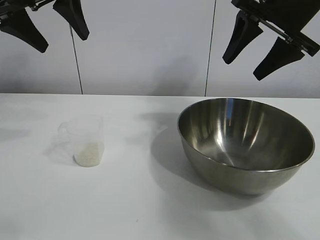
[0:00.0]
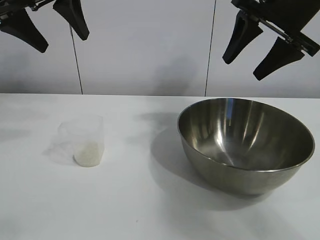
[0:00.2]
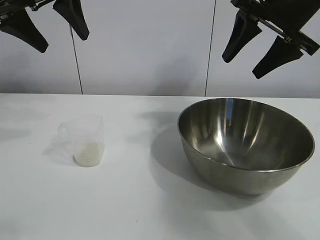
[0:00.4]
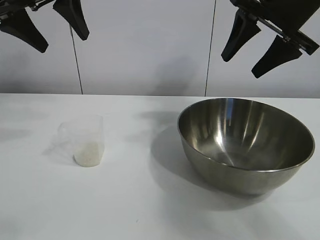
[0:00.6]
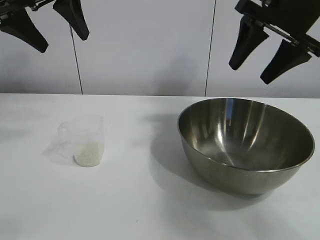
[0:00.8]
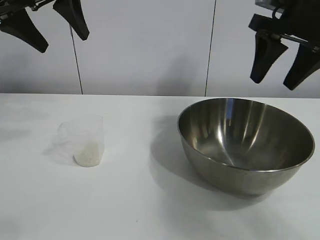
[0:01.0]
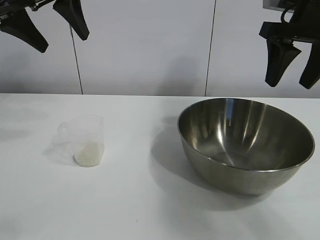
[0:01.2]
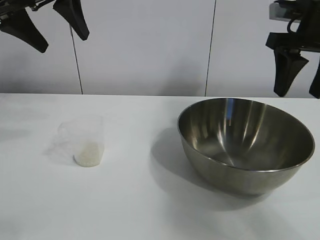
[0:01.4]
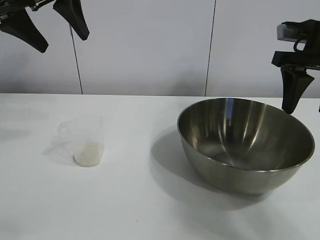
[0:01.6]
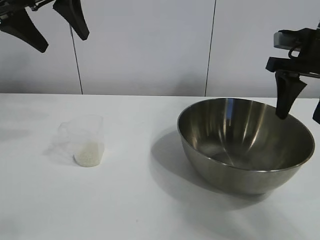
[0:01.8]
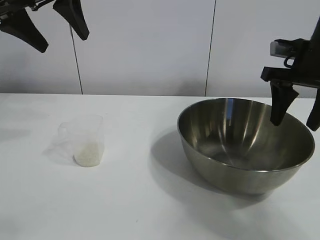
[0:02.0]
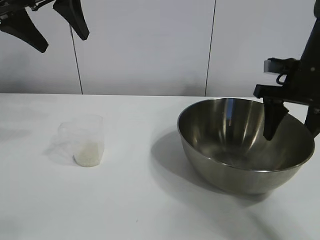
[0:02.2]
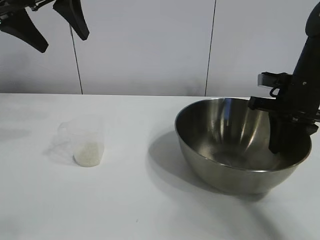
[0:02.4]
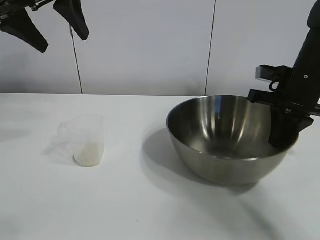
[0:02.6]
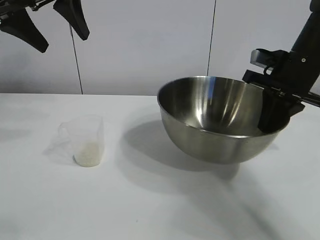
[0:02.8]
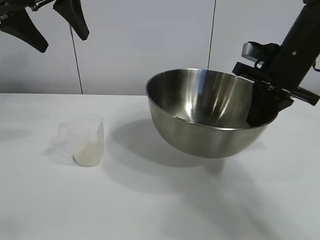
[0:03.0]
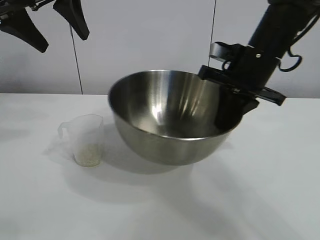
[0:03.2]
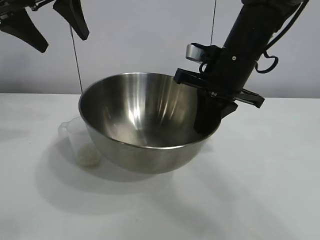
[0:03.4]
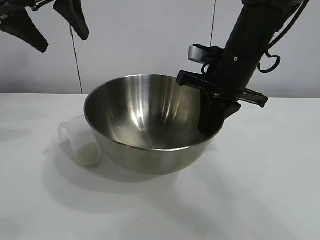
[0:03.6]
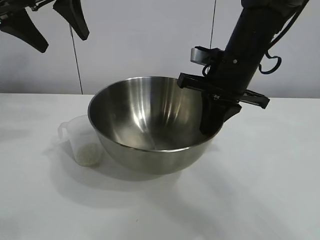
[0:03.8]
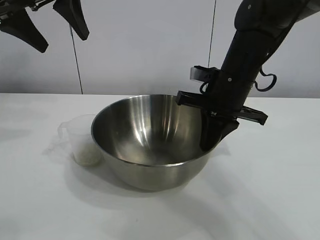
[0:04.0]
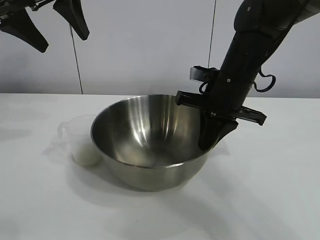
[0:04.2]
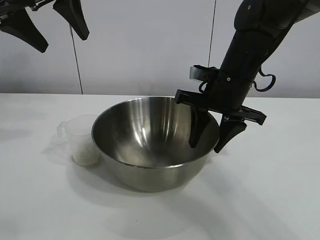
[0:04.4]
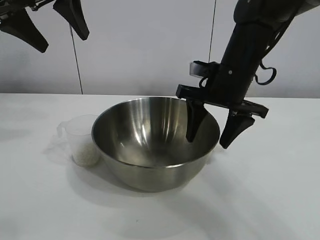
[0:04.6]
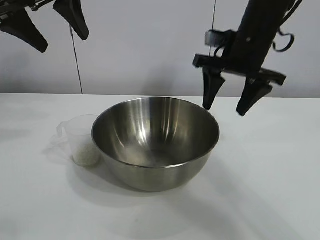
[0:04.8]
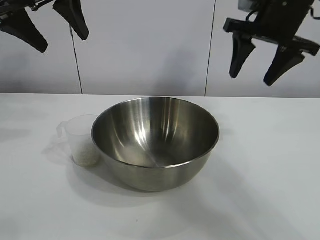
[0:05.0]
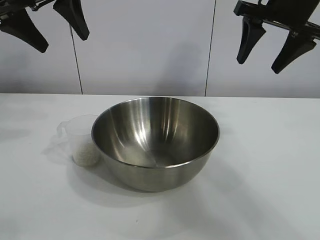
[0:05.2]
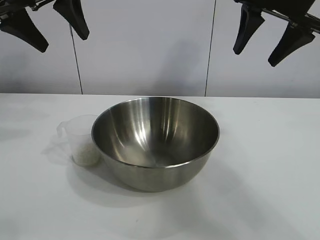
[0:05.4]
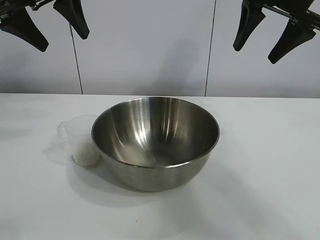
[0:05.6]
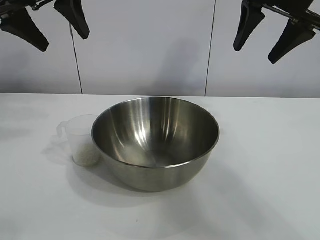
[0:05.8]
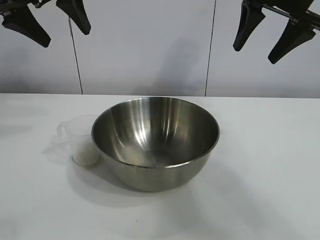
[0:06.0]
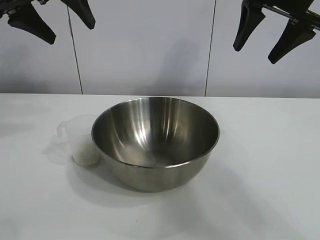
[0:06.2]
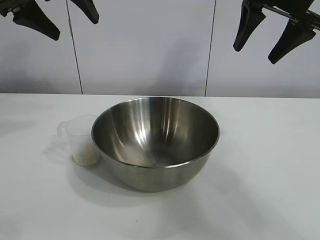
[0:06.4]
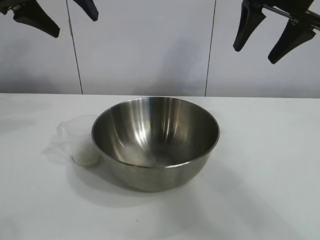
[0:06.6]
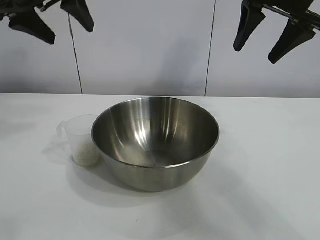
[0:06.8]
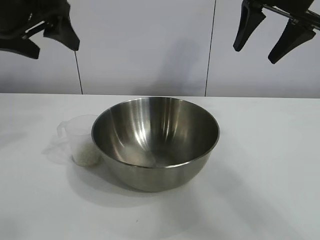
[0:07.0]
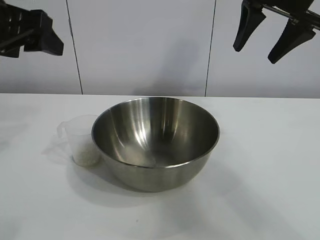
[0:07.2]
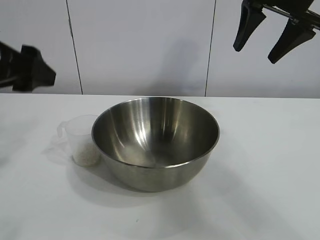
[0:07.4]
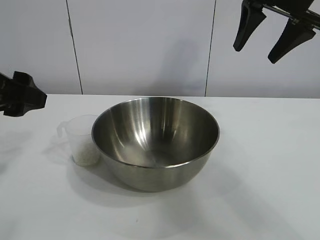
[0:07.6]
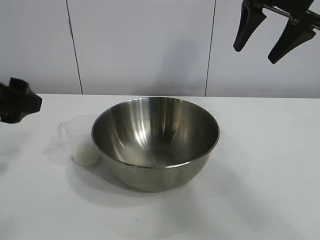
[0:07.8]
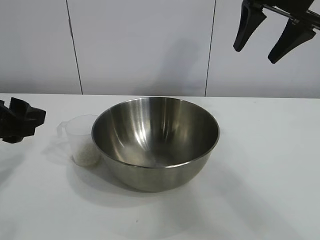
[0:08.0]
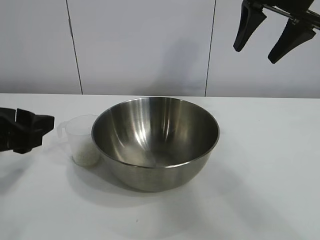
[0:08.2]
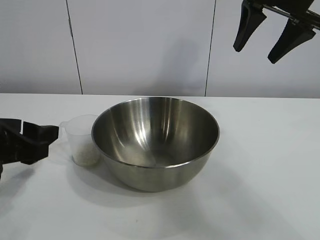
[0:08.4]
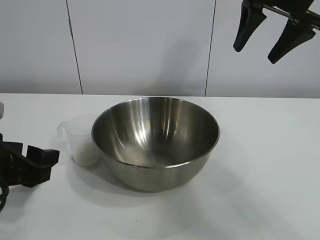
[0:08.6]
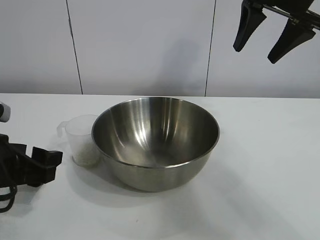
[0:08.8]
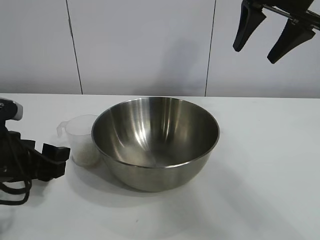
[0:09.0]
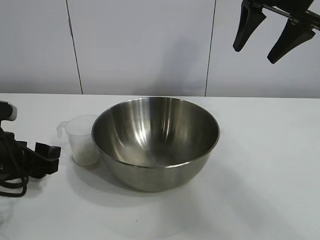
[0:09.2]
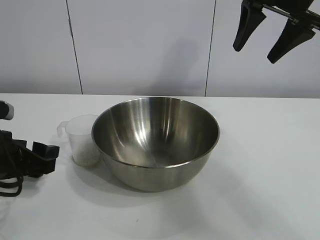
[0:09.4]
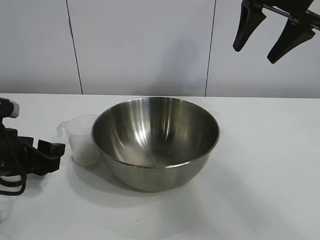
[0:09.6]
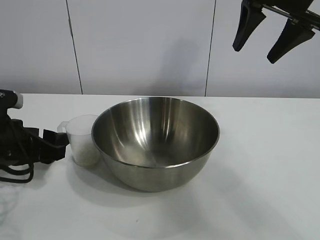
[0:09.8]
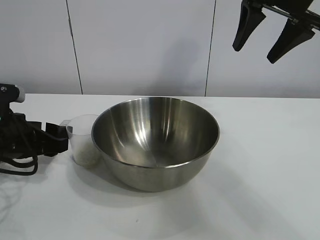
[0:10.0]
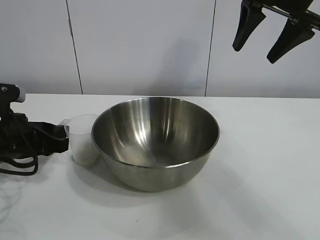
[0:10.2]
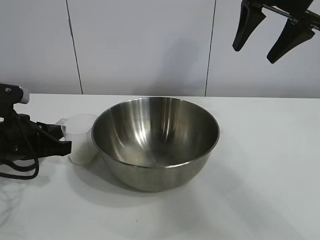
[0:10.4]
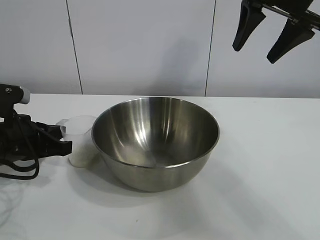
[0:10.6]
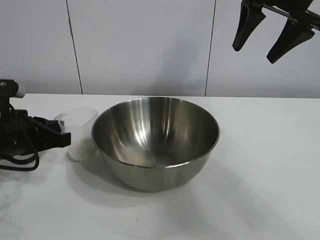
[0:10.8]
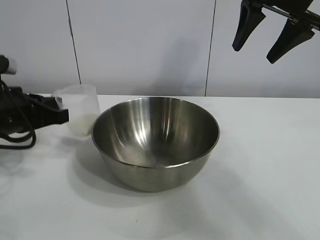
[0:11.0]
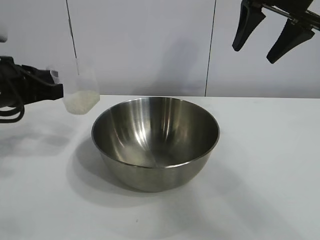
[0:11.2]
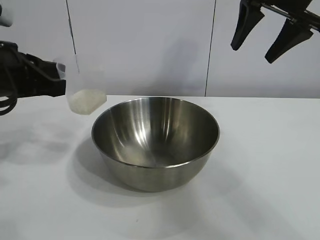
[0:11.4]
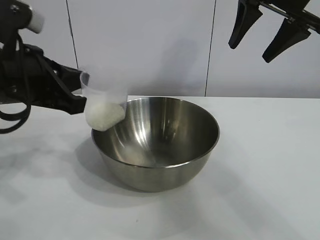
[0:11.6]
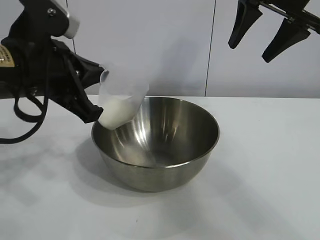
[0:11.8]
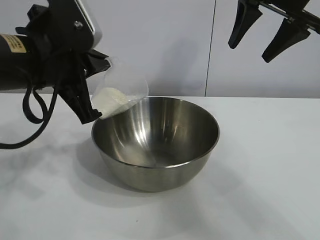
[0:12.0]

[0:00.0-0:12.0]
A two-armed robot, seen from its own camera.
Task of the whole recording: the right gripper grasp the rice container and place it in the center of the table, the left gripper grasp the rice scoop and pour the rice into the rice container.
Step, 0:00.8 to 0:04.4: Move the bowl in the center of view with right gripper.
Step, 0:04.6 to 0:10.6: Grasp the cup with rice in it with left gripper.

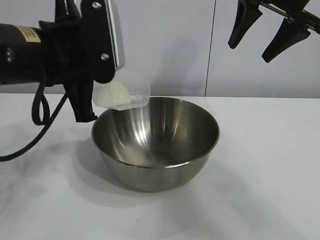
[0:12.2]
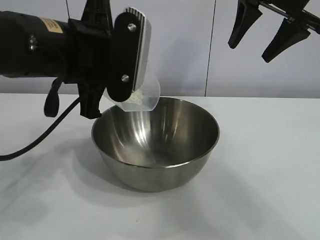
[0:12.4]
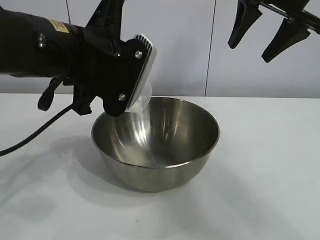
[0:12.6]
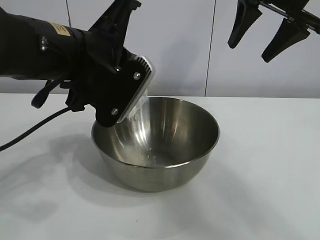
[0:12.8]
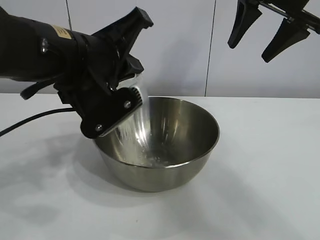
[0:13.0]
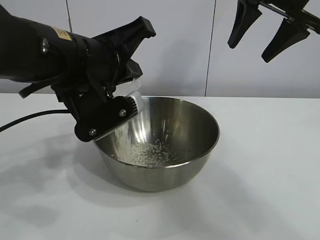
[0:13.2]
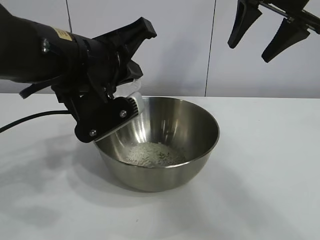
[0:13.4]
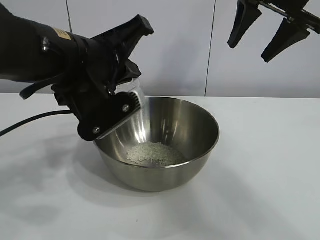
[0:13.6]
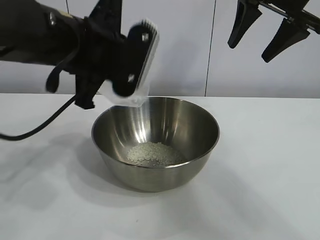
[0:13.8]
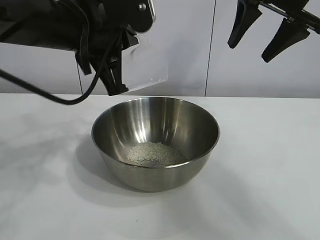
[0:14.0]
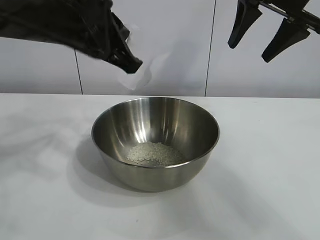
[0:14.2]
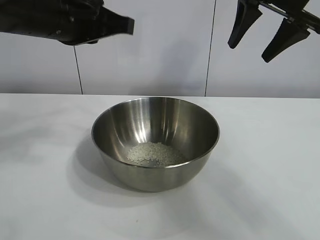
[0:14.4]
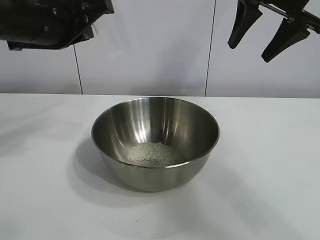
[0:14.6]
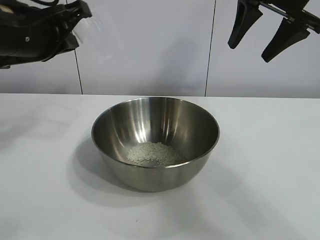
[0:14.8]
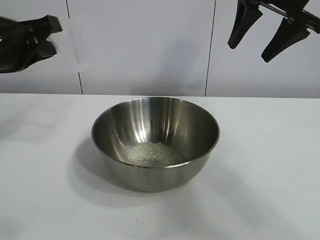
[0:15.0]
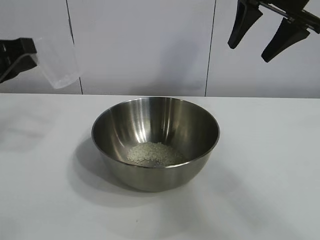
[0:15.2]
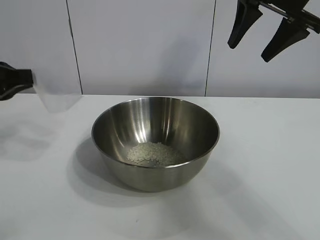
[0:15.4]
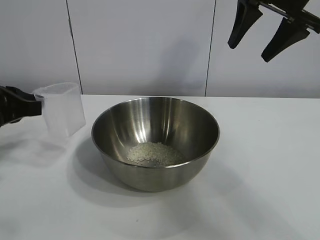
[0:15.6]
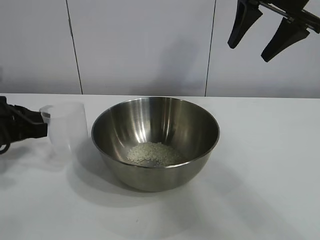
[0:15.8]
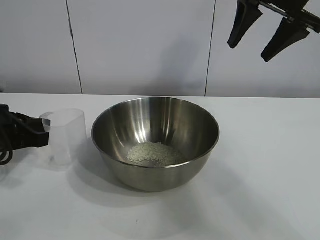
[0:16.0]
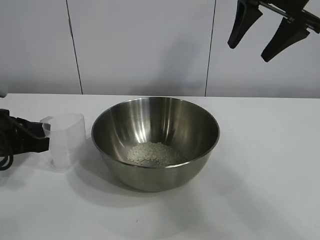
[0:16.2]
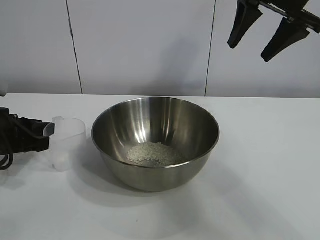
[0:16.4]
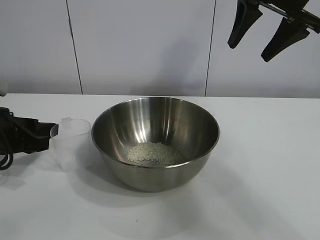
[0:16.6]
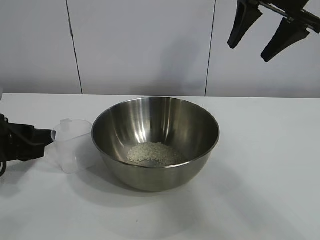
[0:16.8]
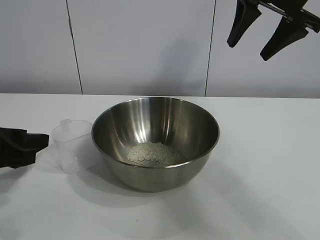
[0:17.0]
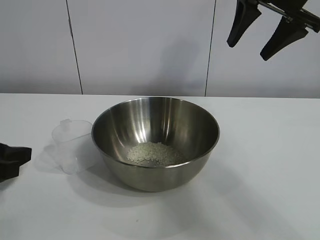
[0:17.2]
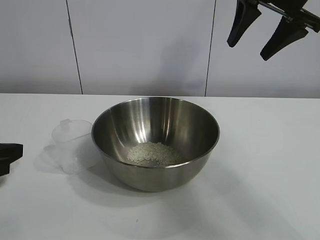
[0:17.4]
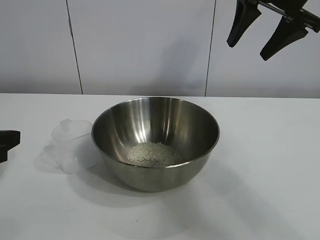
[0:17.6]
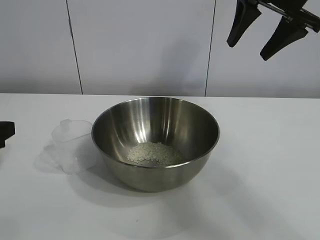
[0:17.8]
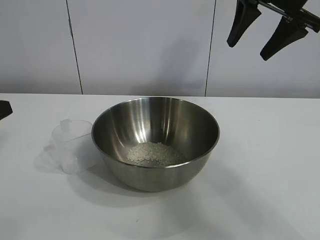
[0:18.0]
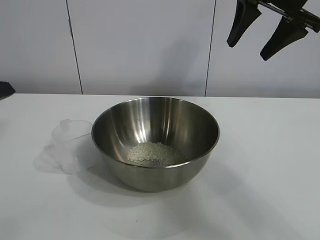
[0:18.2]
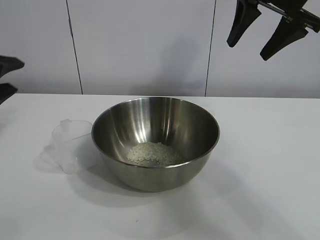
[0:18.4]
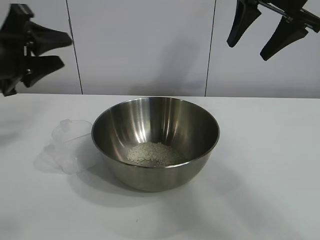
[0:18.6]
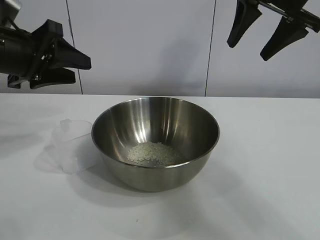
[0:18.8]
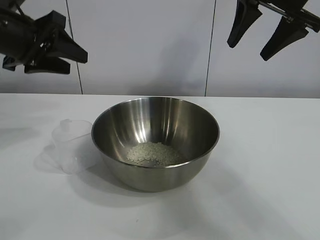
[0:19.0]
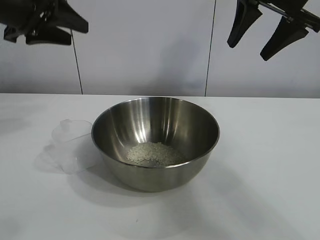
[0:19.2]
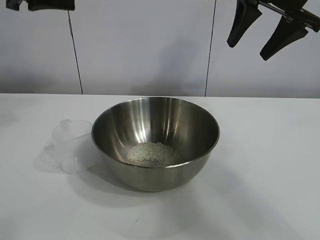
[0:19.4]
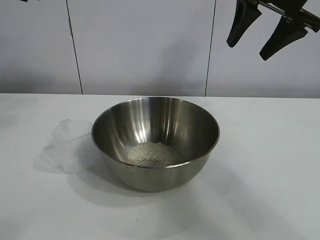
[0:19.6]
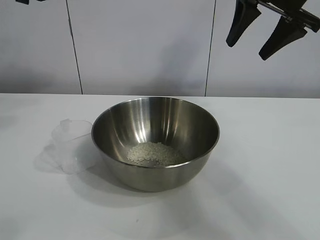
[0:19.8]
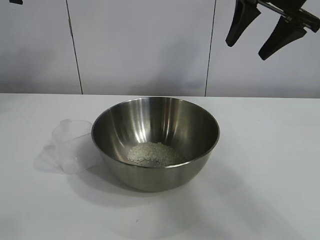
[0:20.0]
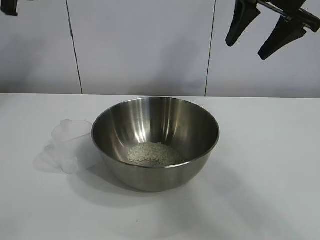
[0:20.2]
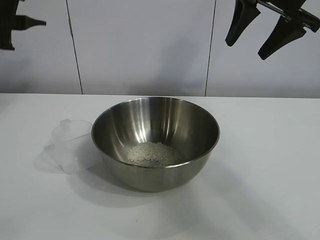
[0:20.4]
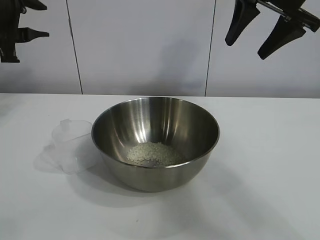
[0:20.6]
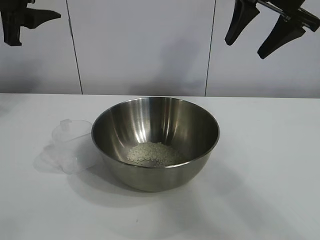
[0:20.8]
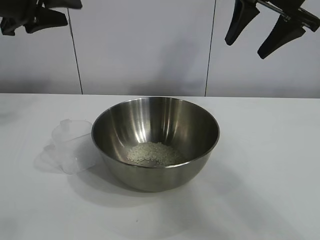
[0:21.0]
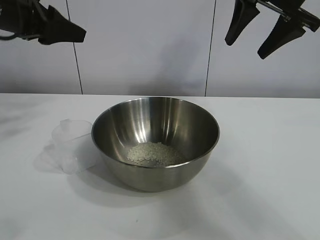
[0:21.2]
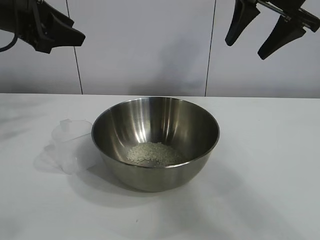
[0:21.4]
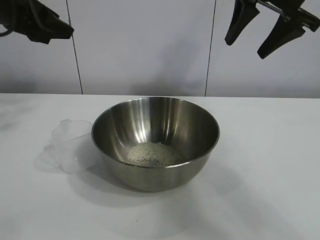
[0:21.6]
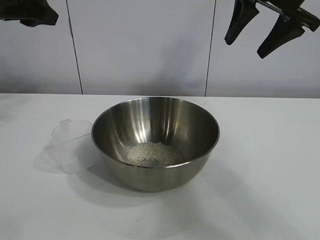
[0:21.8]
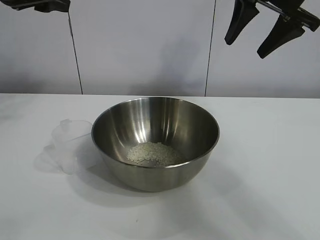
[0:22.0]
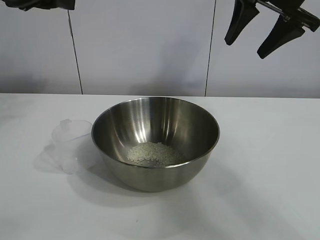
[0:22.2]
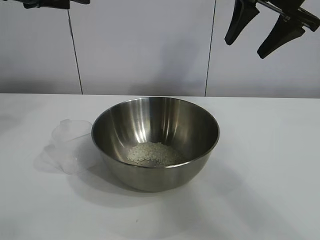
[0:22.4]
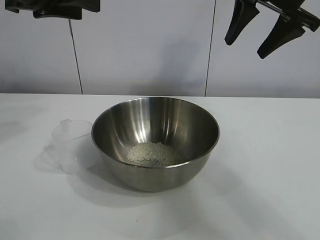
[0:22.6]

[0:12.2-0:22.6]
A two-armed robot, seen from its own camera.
Task of the whole recording: the right gripper grasp the rice container and place it in the center of the table, the left gripper grasp the rice scoop and pour the rice into the rice container.
Step, 0:12.2 to 0:13.8: Pour the rice from the cup into the bowl with the left gripper.
Step, 0:14.0 to 0:16.2: Place the cup on the table with the left gripper.
